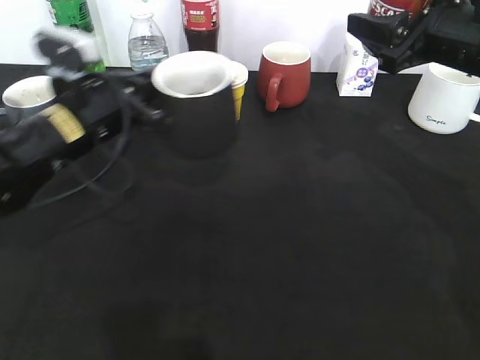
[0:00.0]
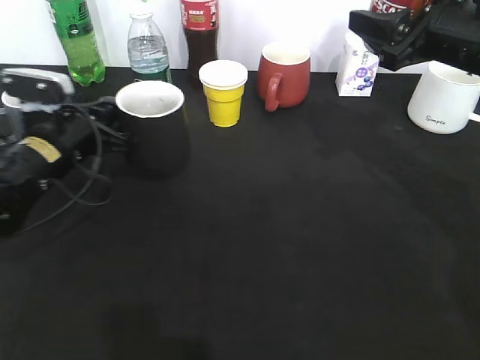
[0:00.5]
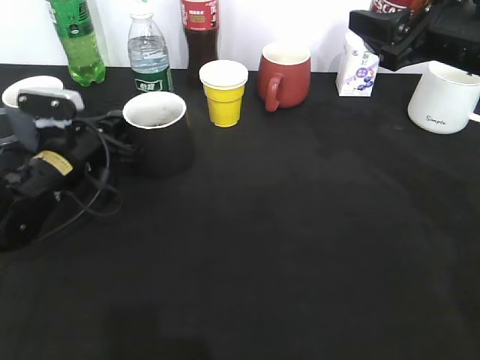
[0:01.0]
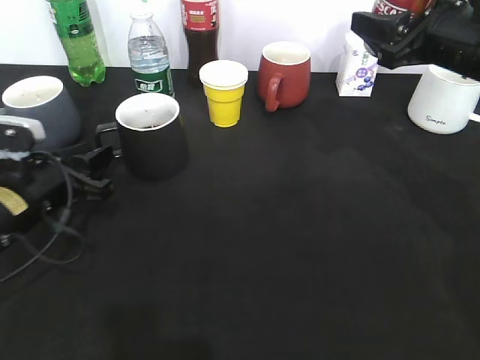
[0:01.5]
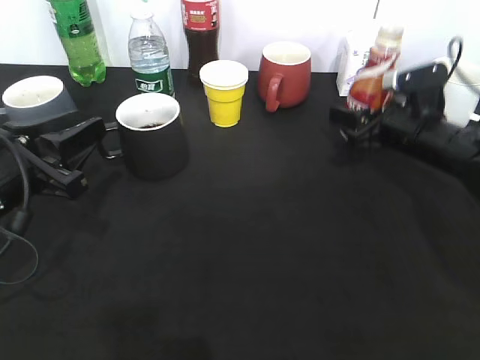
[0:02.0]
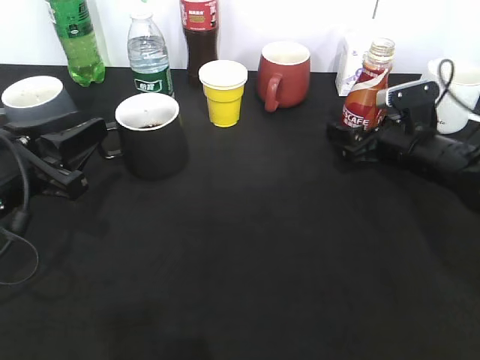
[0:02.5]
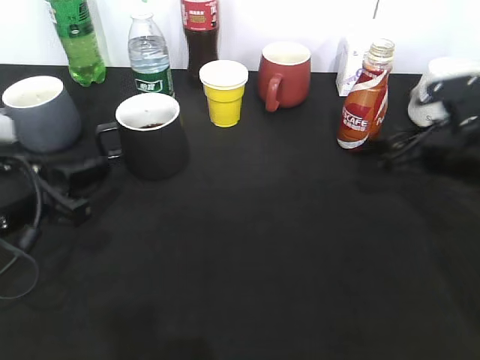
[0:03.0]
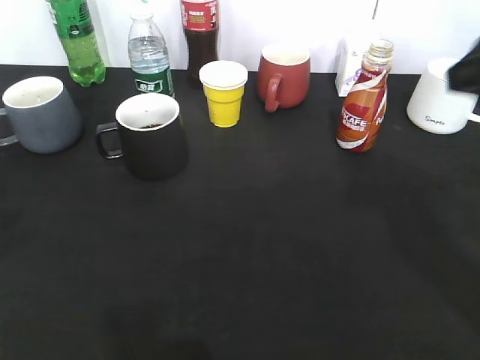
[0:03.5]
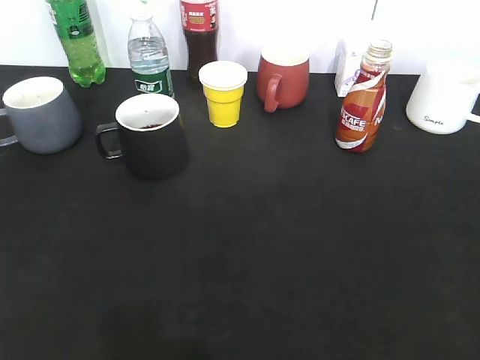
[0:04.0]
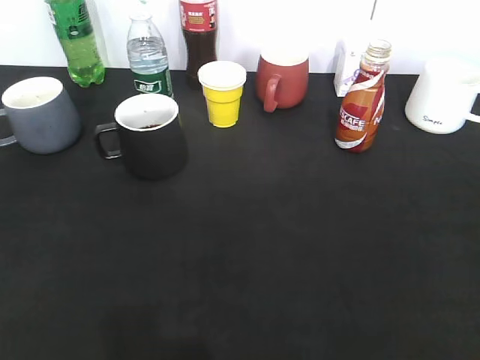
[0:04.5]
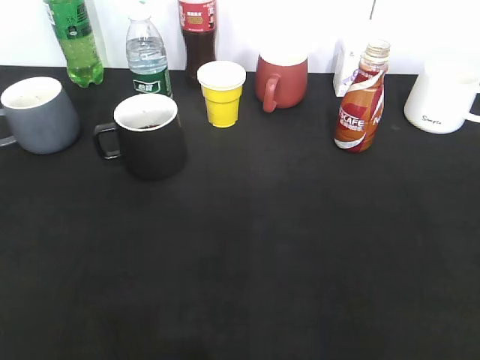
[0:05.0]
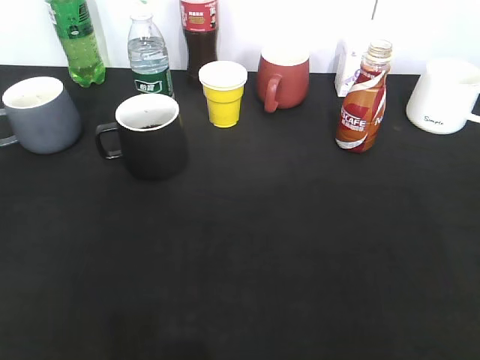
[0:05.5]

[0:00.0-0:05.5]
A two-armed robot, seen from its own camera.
Step, 0:00.0 to 0:01.0: Place the black cup on the table with left gripper.
Step, 0:01.5 to 0:02.5: Place the coffee bottle on the table with right gripper.
0:00.0 to 0:02.0: The right gripper is displaced downward by some 15 cm; the left gripper moves backward and to the left, approximately 10 cm, and opens up.
0:02.0 to 0:03.5: The left gripper heads upward and backward, covering roughly 15 cm, while the right gripper shifts some 30 cm upward and backward.
0:03.5 to 0:05.5: The left gripper shifts approximately 15 cm backward. Meanwhile the right gripper goes some 25 cm backward and to the right.

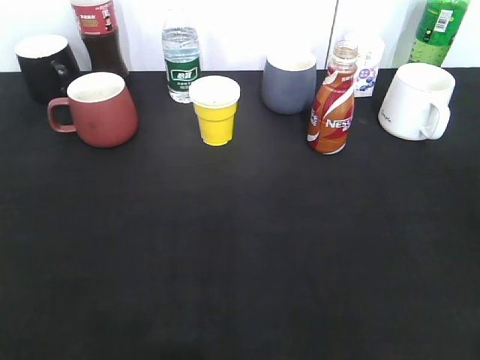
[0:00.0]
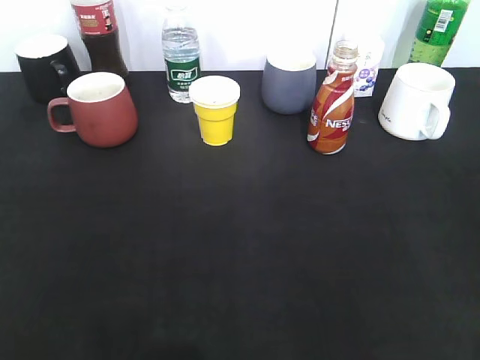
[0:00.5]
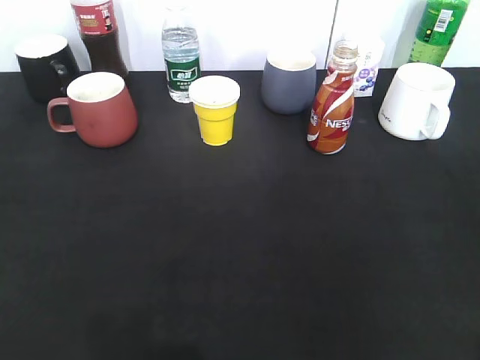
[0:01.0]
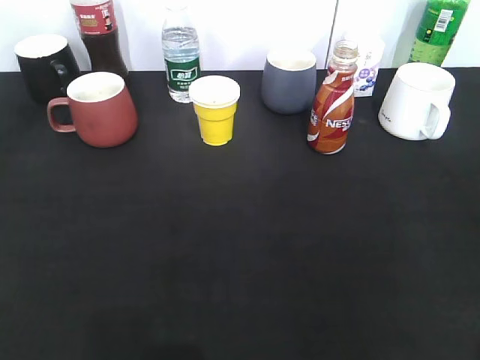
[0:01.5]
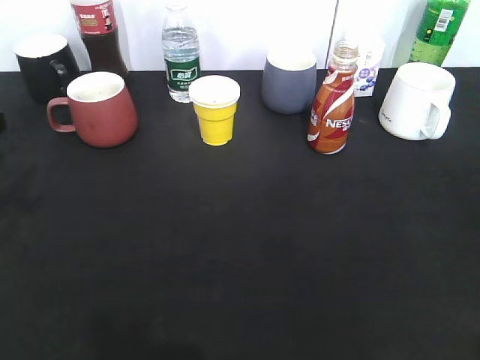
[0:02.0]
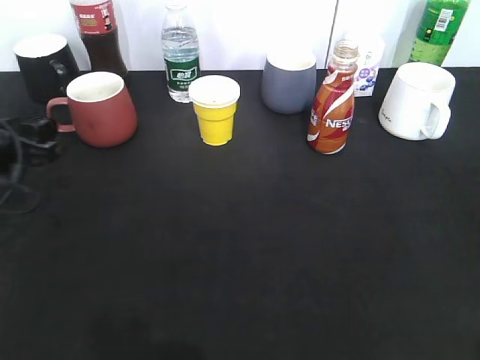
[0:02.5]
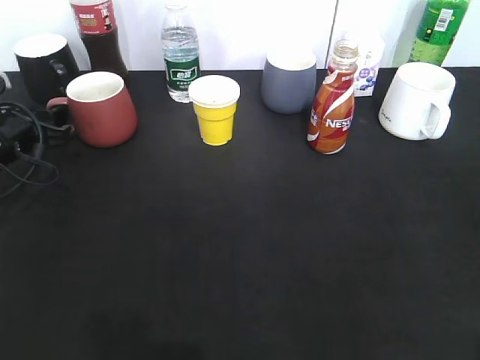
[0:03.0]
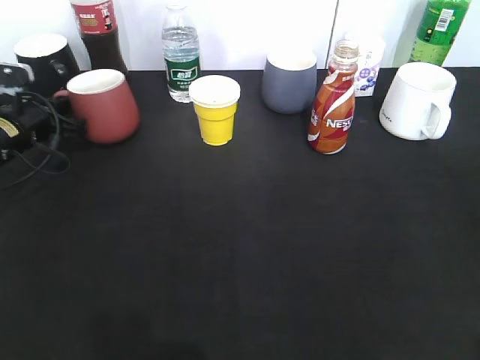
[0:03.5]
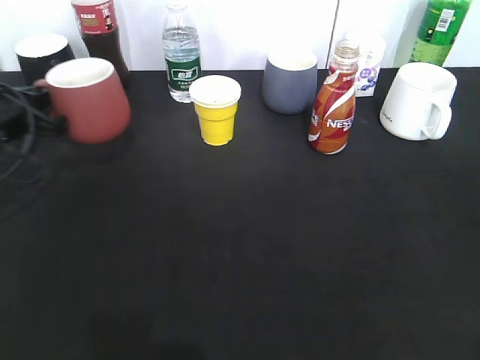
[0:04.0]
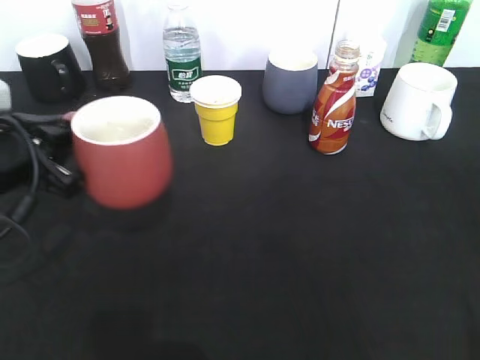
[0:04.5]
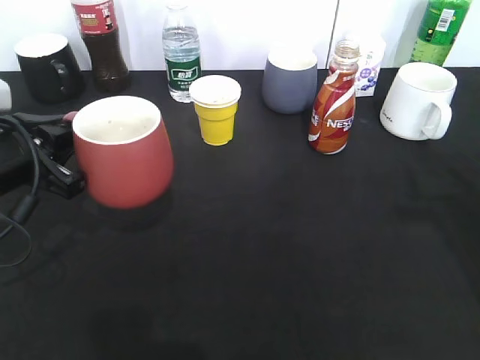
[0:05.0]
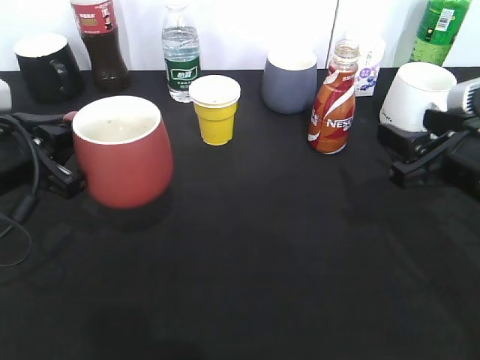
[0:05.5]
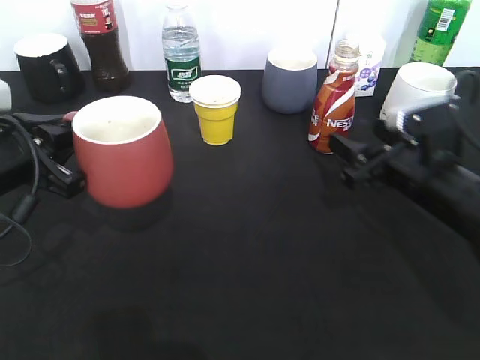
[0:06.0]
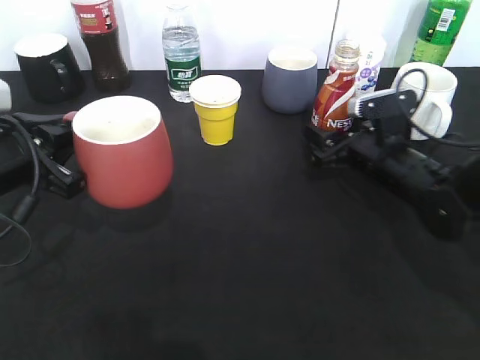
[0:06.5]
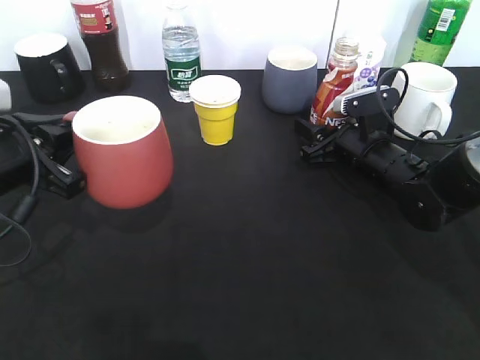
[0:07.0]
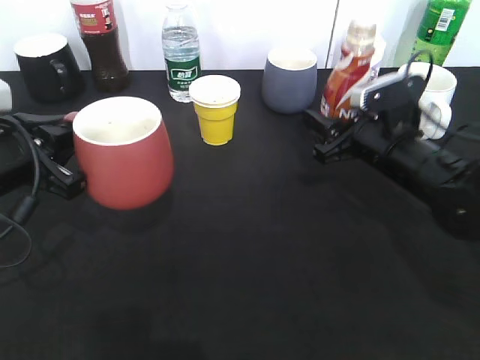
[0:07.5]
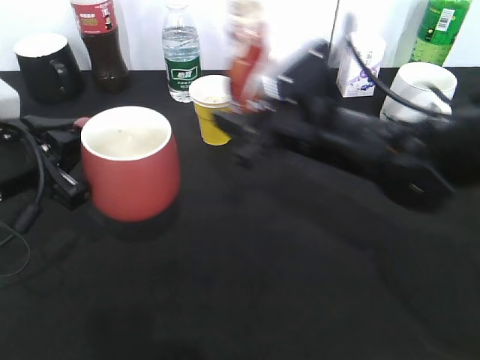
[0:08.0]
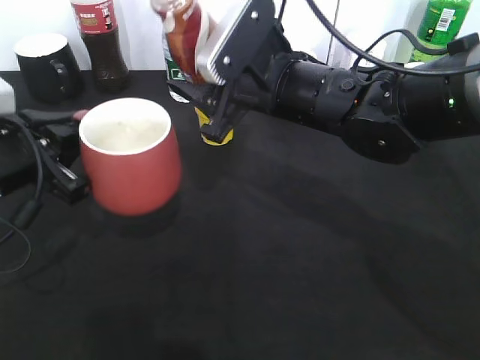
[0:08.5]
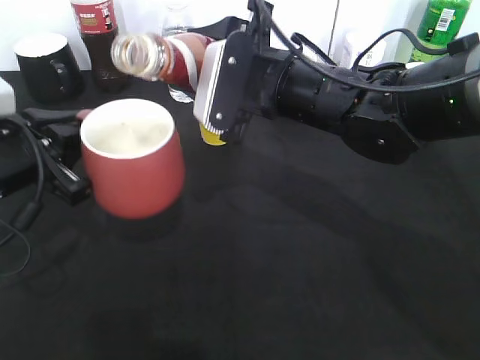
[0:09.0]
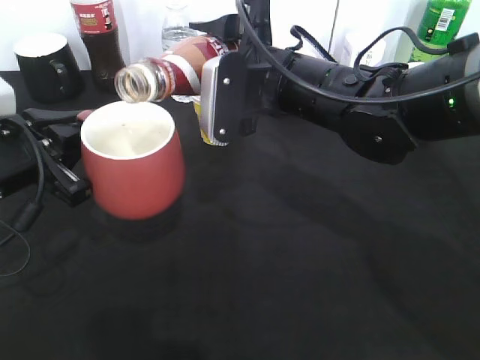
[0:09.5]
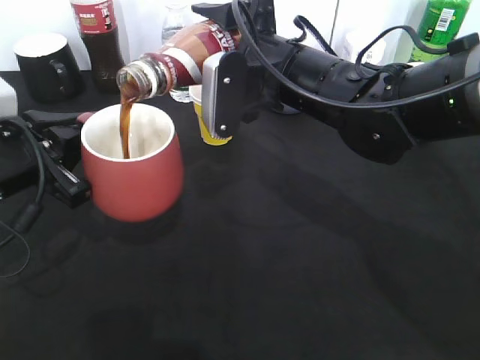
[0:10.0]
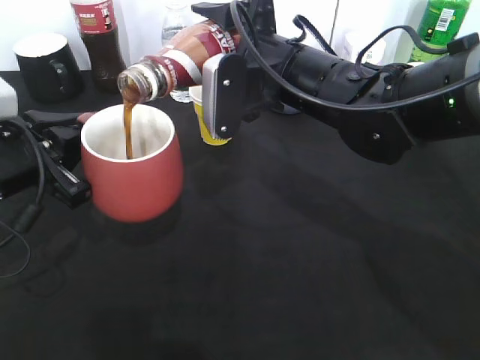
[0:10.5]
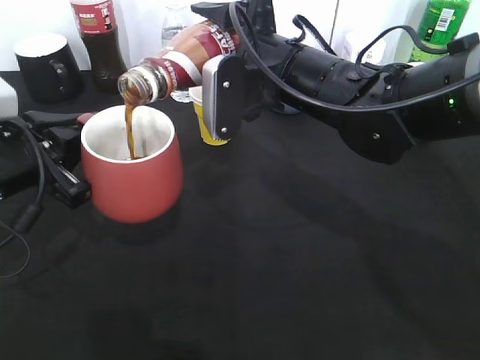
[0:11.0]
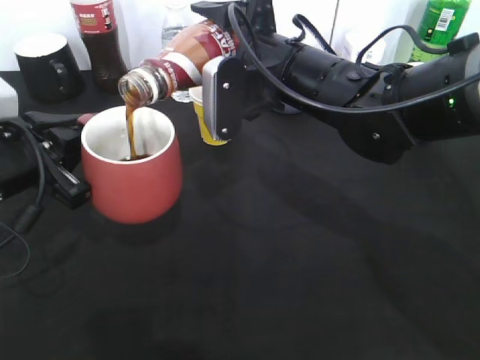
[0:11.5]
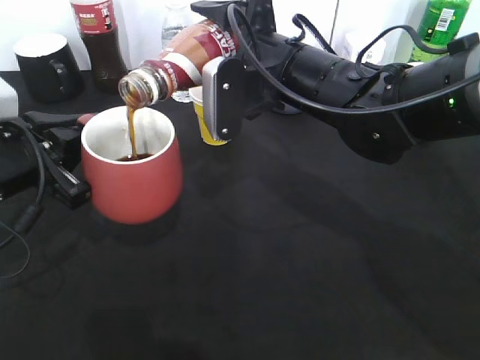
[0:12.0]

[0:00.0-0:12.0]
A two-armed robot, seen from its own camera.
Step, 0:02.0 to 0:03.5: Grasp the red cup with left gripper.
Step, 0:04.0 to 0:05.0: Lift the red cup with left gripper.
Step, 0:05.5 to 0:06.5: Grasp the bottle with coffee with right gripper.
0:00.0 to 0:02.0: The left gripper travels forward by some 25 cm.
0:02.0 to 0:04.0: The left gripper shifts some 10 cm forward, and closes up.
0:04.0 to 0:06.0: The left gripper shifts approximately 10 cm backward and to the right. Meanwhile the right gripper goes about 35 cm forward and downward, and opens up.
0:06.0 to 0:08.0: The right gripper heads to the left, covering some 15 cm, and closes its fingers.
0:08.0 to 0:10.0: The right gripper moves some 5 cm.
0:10.0 to 0:12.0: Both grippers stay put.

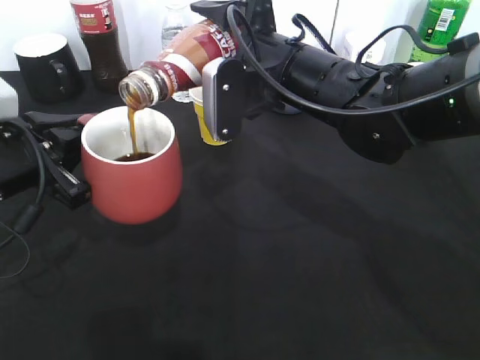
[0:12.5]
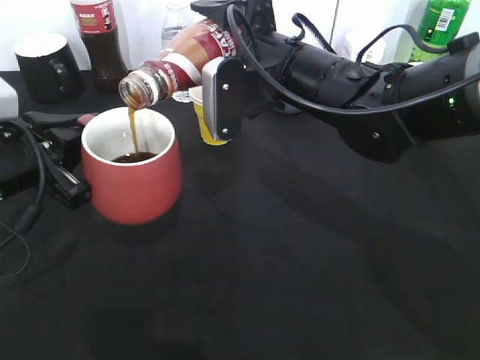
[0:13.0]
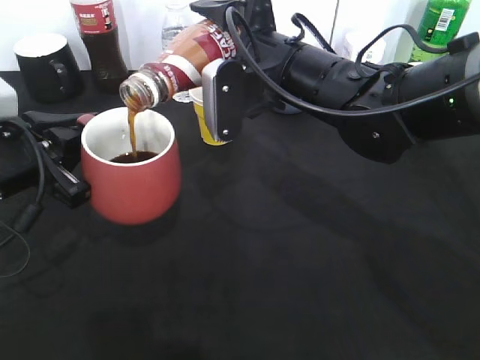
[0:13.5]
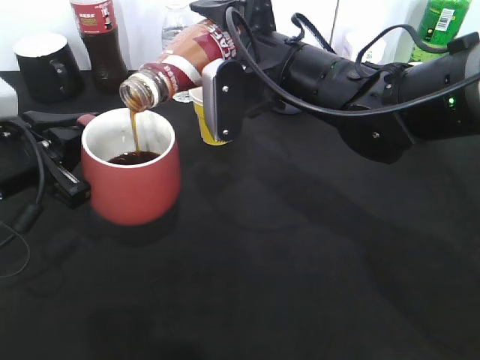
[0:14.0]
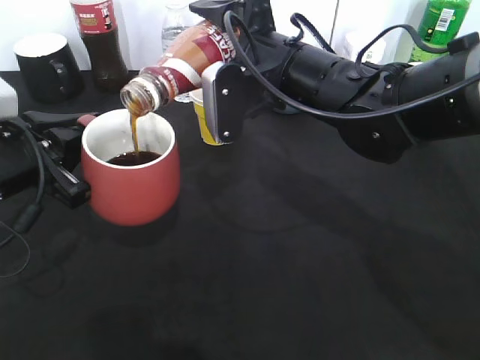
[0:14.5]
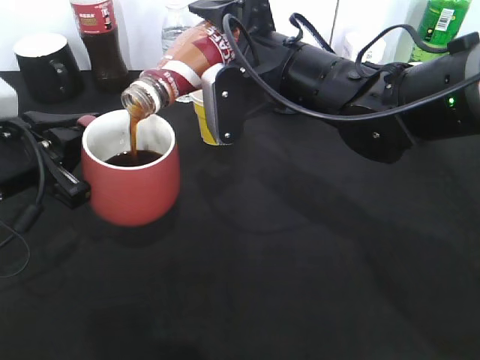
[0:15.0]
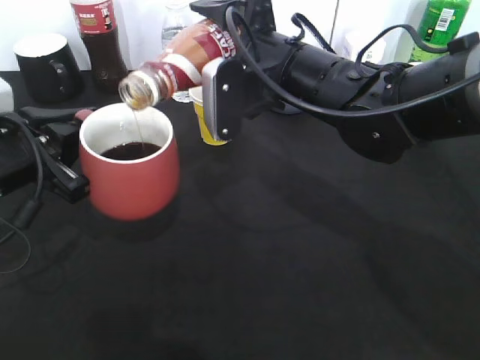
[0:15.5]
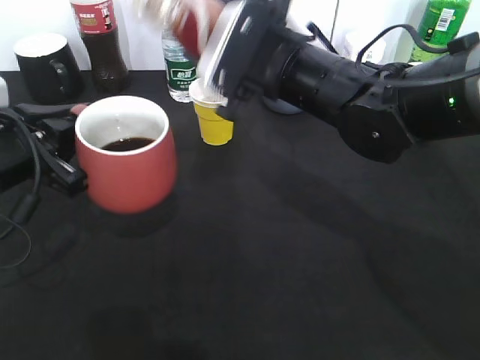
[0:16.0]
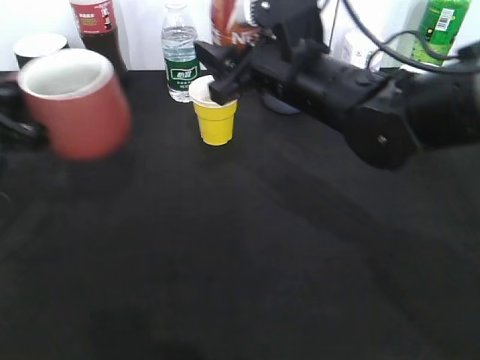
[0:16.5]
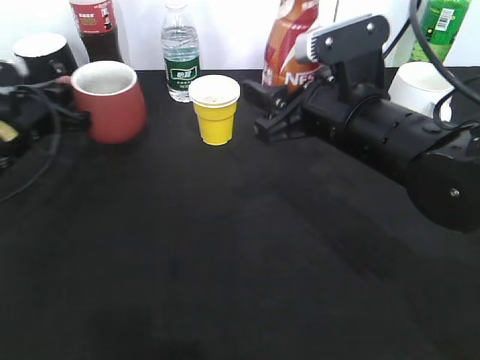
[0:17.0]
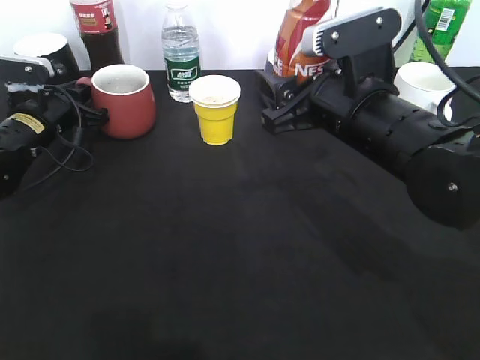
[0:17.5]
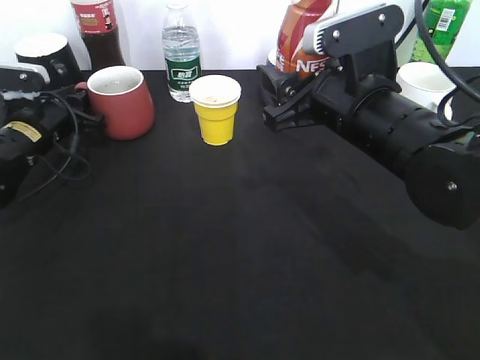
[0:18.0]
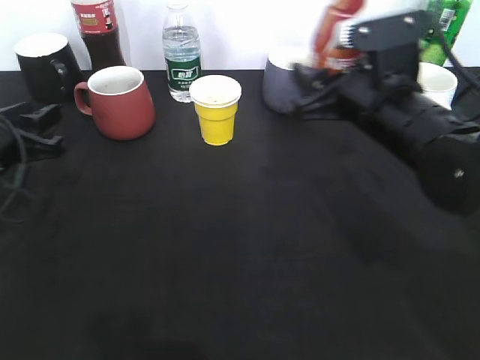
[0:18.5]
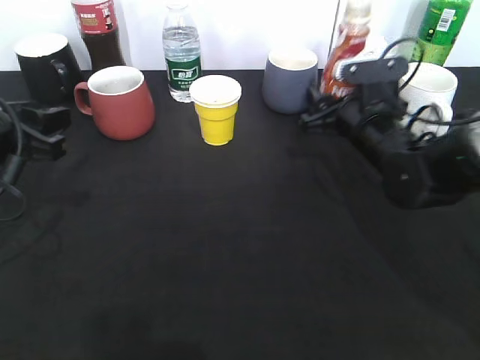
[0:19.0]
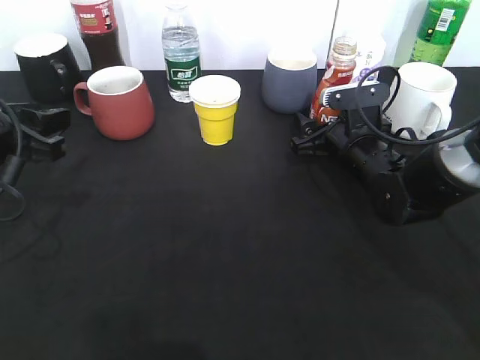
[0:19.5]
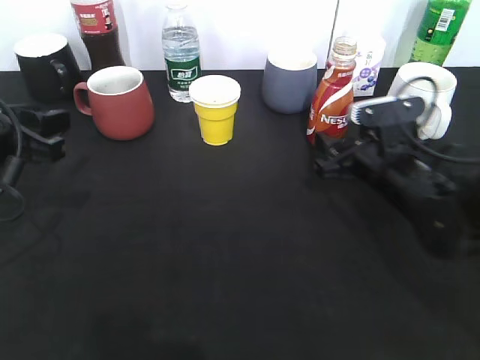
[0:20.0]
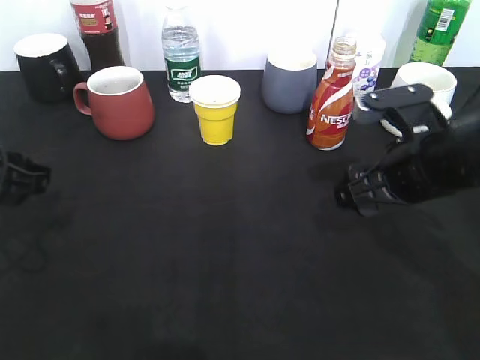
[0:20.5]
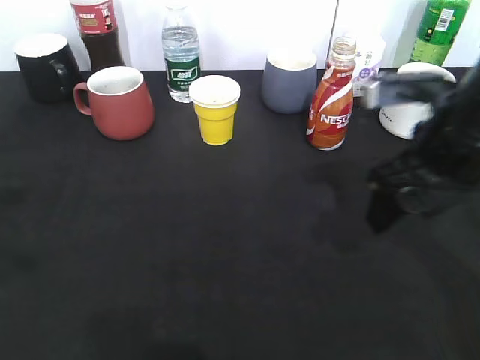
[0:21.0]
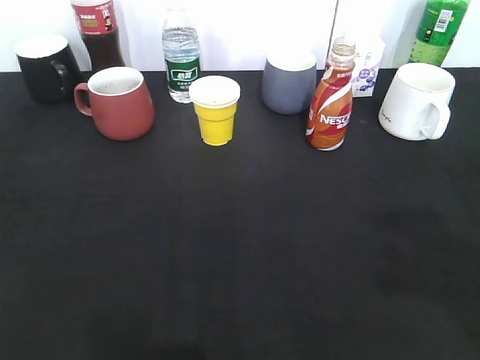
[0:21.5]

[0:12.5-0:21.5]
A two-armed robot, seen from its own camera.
Step, 0:12.5 to 0:15.5: Pour the coffee from bottle to cup with right gripper.
Step, 0:16.5 to 0:18.0: Place the red cup on the table with left gripper.
Step, 0:18.5 to 0:19.5: Place the coffee bottle on the table with right gripper.
0:12.5 to 0:14.5: The two grippers keep their place.
0:14.5 to 0:17.0: The left gripper heads forward and downward, covering approximately 15 cm; the right gripper shifts some 5 cm to the right.
0:17.0 to 0:19.5: The left gripper moves backward and upward, some 10 cm, and opens up, while the right gripper heads downward and forward, covering some 15 cm, and opens its fingers.
0:19.5 to 0:21.5: The right gripper heads upward and backward, covering roughly 40 cm, and closes up, while the left gripper shifts roughly 25 cm backward and upward.
